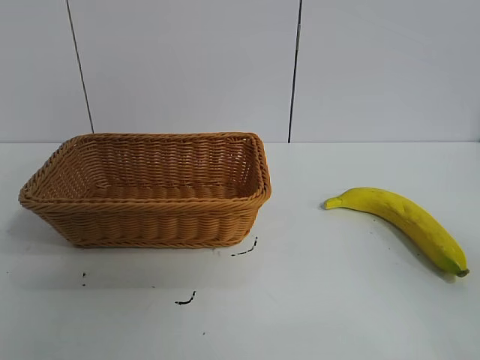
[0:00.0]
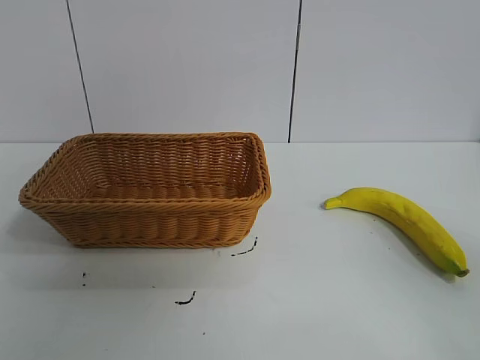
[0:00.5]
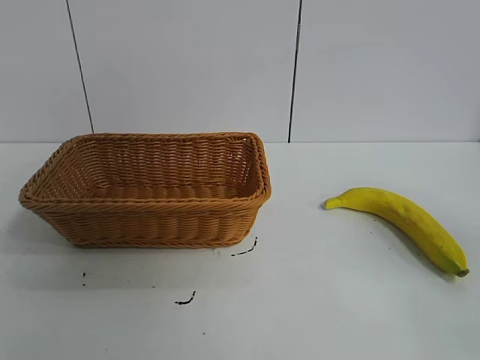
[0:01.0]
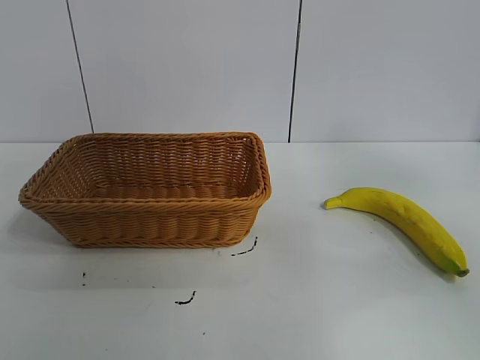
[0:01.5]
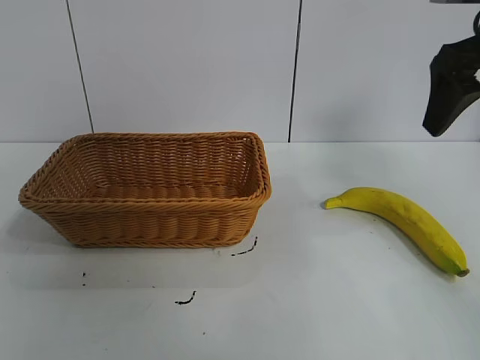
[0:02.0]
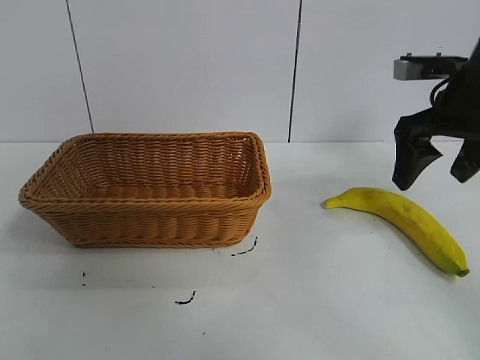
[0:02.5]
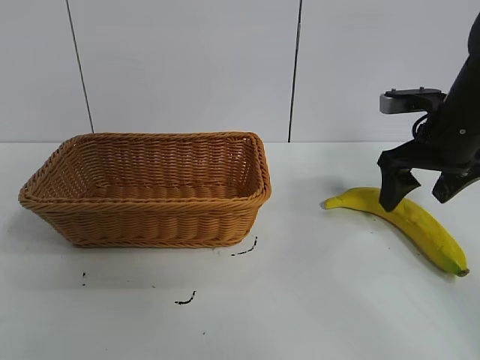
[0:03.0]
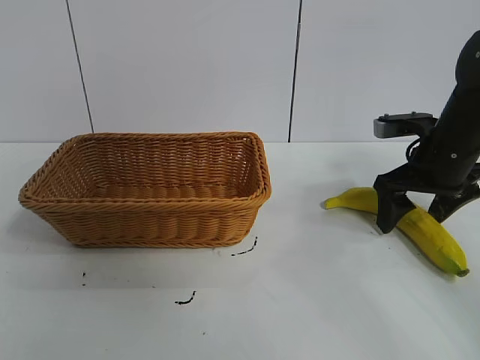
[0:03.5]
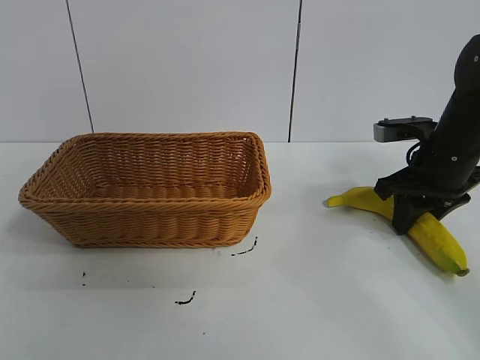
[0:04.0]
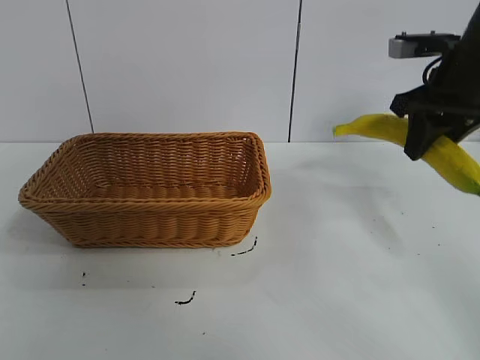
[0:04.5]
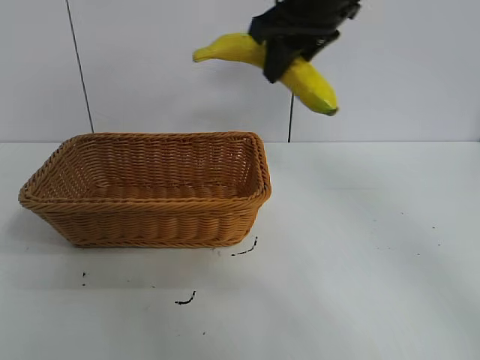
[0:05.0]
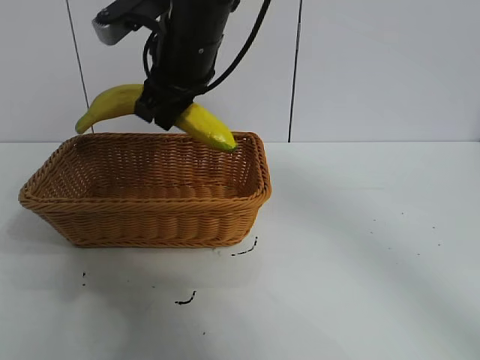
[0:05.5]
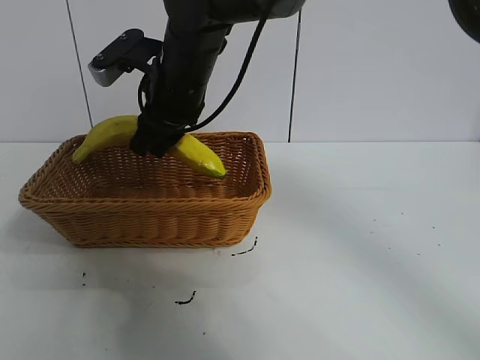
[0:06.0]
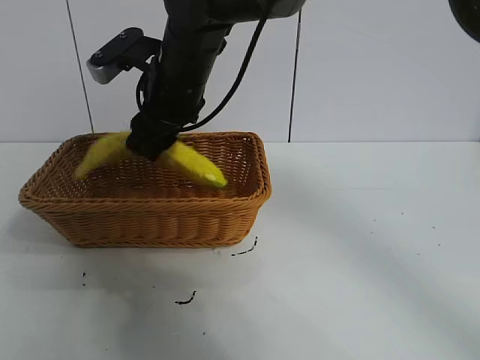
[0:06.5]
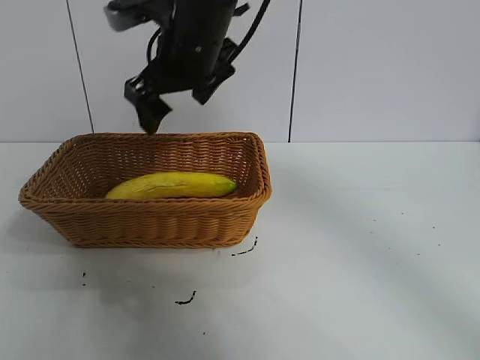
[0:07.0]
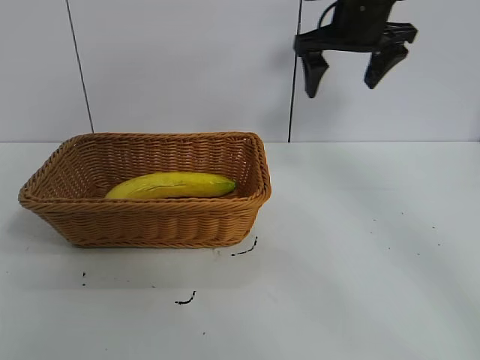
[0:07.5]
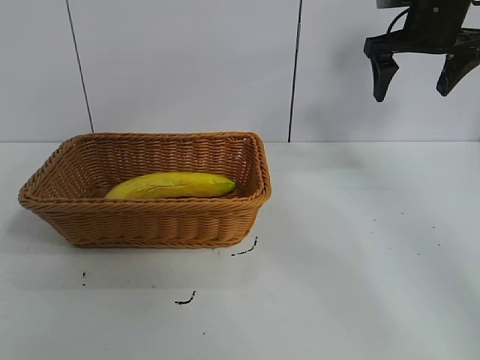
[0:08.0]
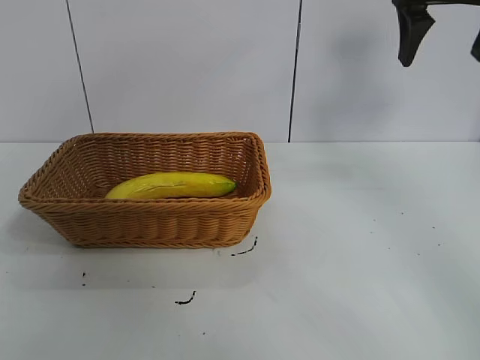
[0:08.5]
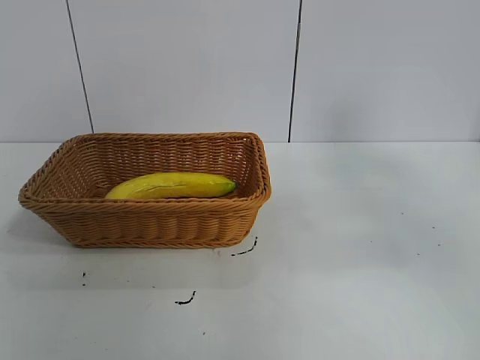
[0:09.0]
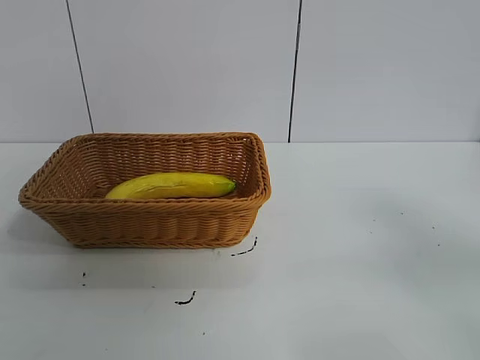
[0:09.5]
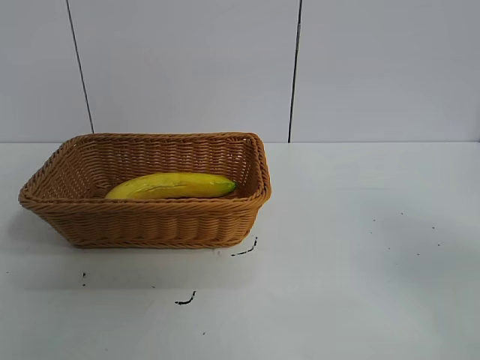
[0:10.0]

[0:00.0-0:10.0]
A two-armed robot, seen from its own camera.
Task of the whole recording: pick up the banana and put it into the basket.
Step, 0:01.0 to 0:03.5: Grasp the banana with right gripper.
Step, 0:04.5 to 0:06.5: Place the banana in the basket with right gripper.

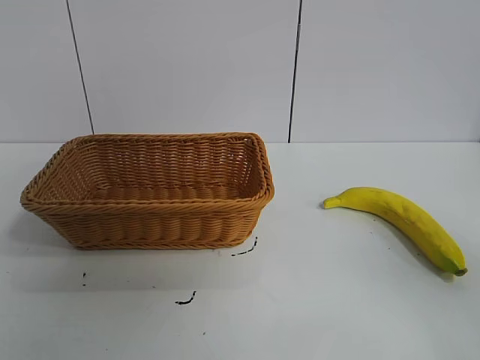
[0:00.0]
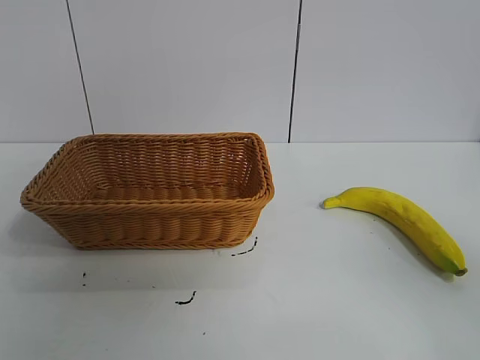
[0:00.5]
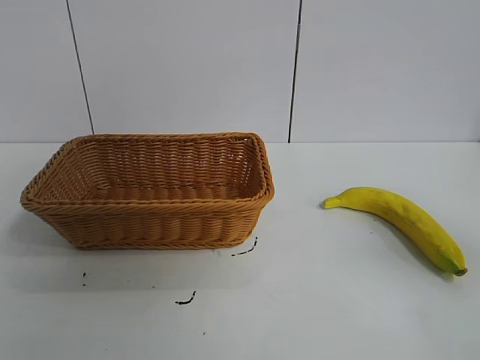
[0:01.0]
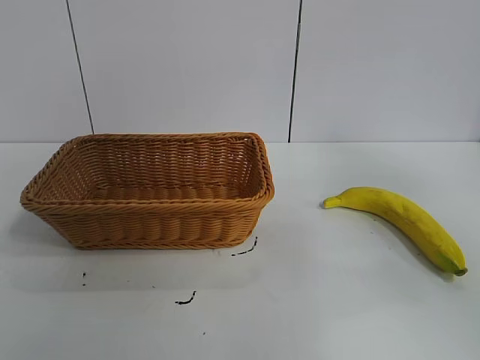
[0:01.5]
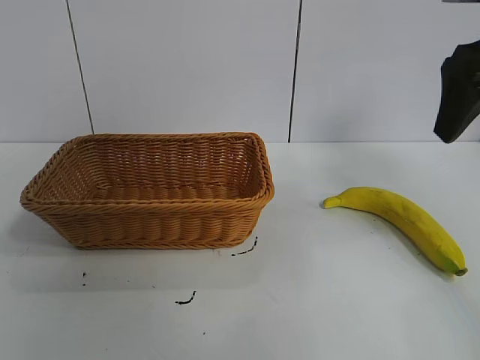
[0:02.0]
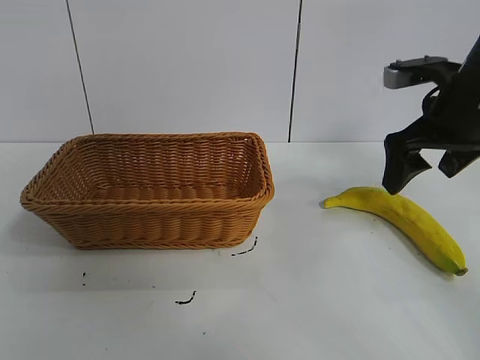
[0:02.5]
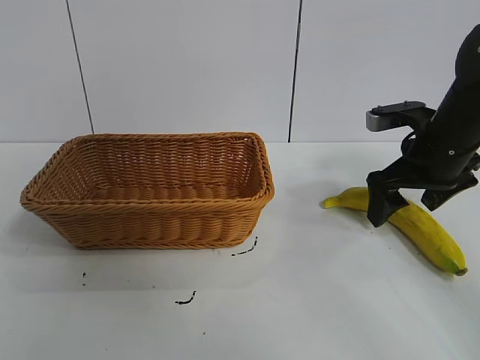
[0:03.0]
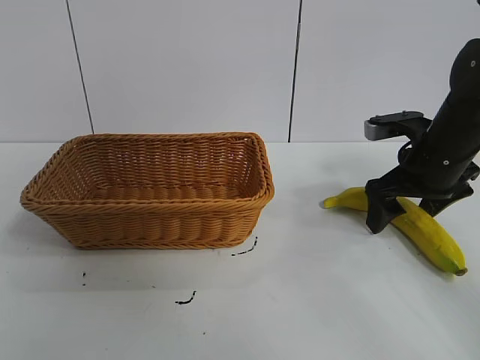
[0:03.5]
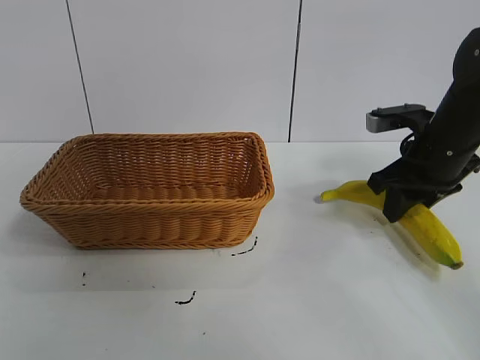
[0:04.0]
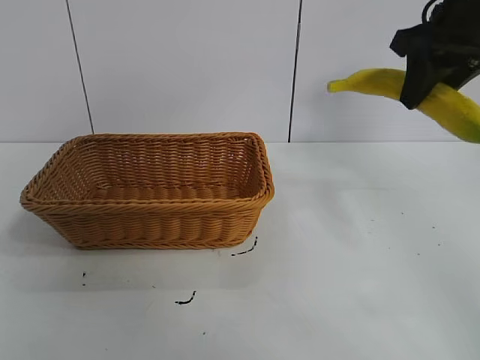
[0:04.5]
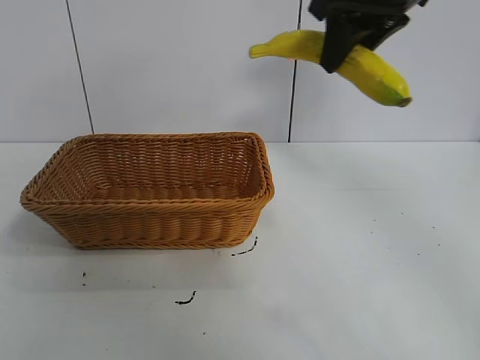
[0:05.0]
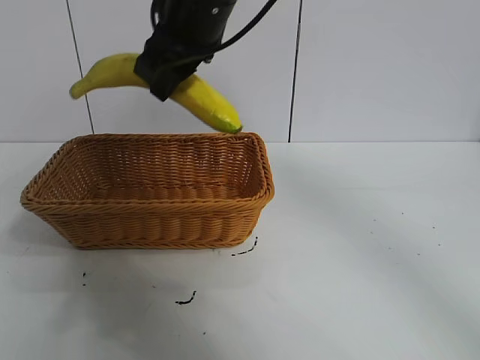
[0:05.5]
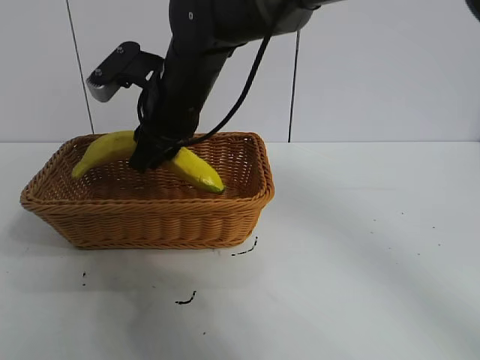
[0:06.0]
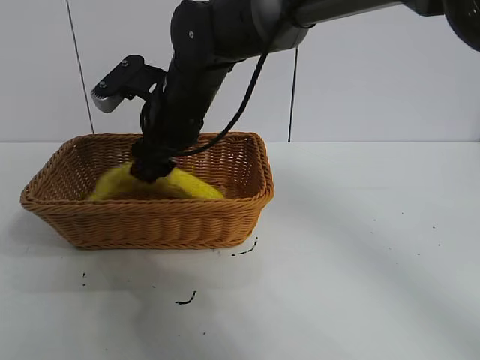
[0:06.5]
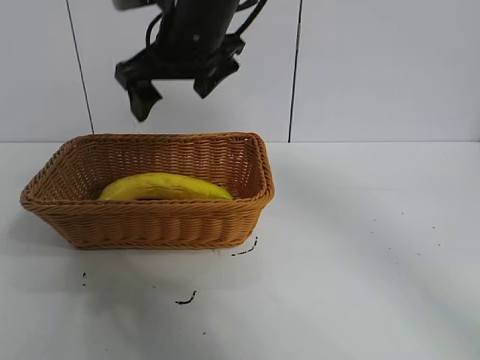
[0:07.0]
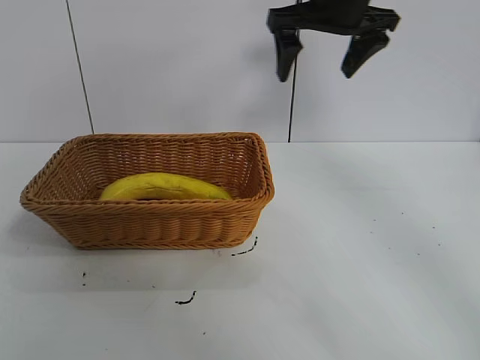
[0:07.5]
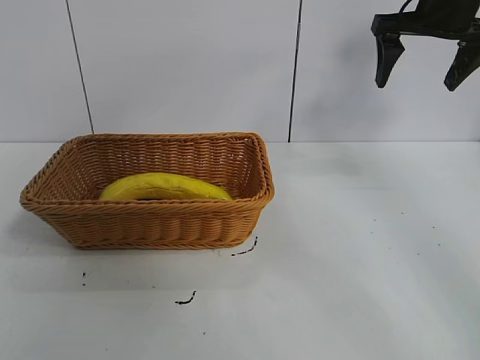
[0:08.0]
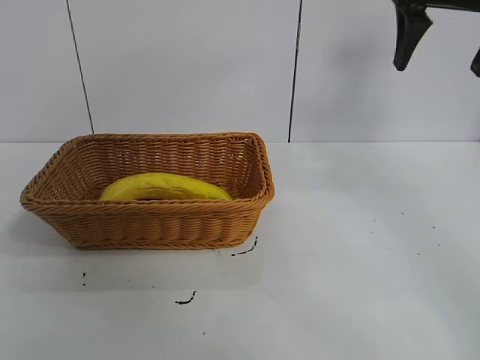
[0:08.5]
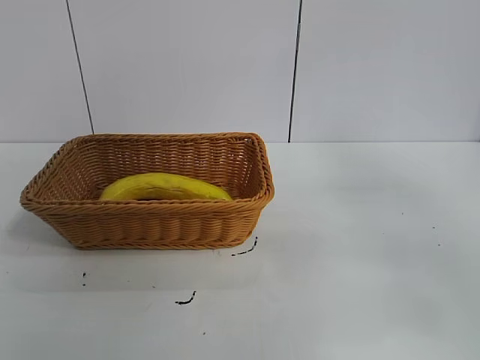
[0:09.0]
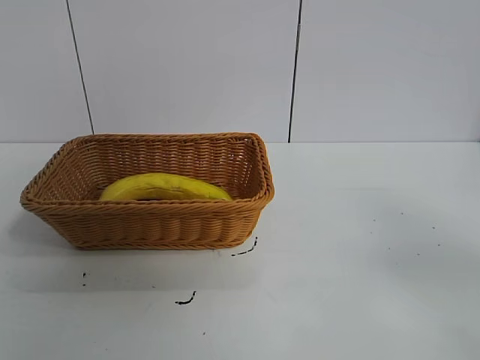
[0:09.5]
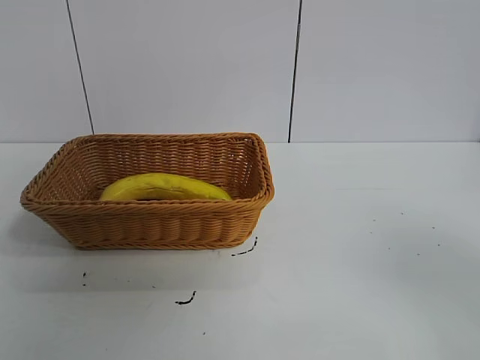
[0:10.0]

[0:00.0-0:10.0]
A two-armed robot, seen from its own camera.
Task of the whole recording: pick up the banana and put it into the basket.
Step, 0:01.0 to 0:03.5: Grasp the banana with right gripper.
Step, 0:04.0 to 0:06.5: Place the banana in the basket with right gripper.

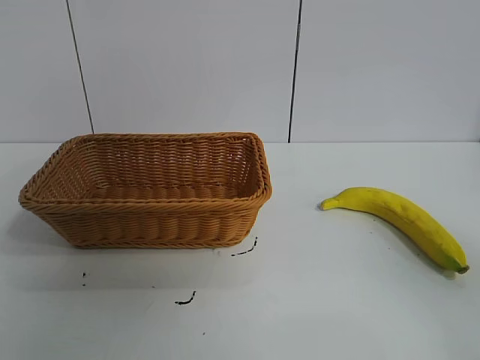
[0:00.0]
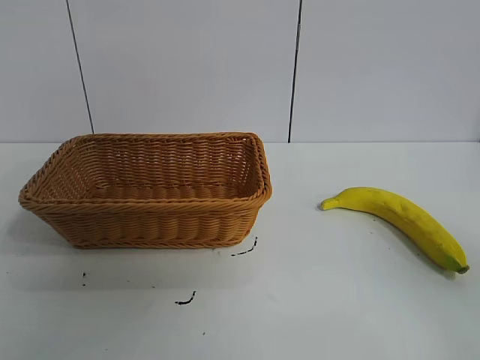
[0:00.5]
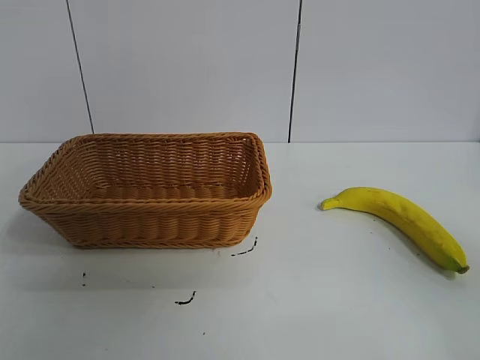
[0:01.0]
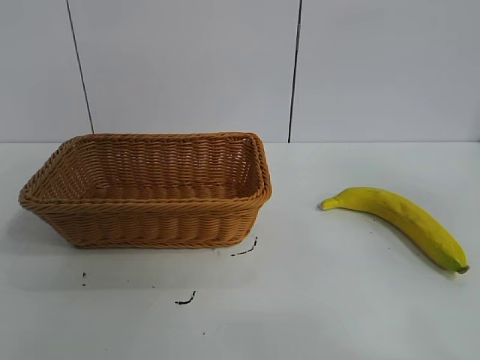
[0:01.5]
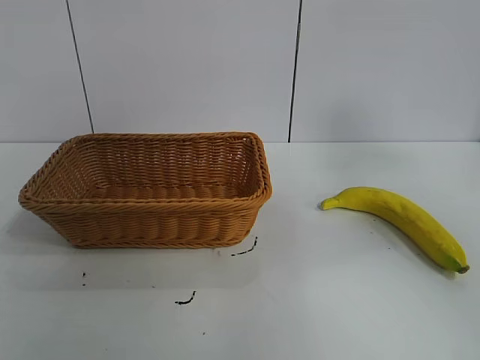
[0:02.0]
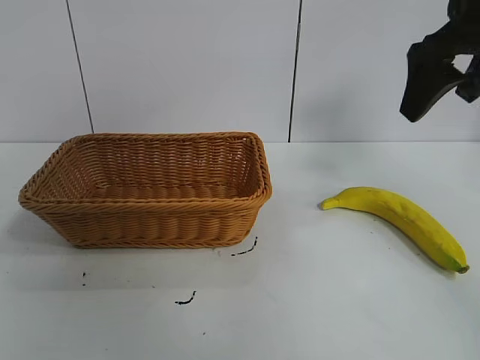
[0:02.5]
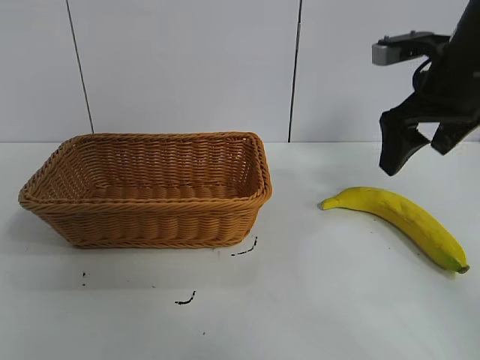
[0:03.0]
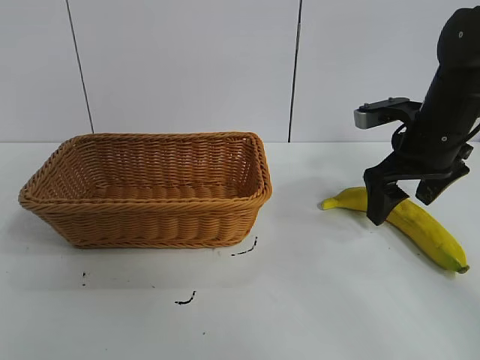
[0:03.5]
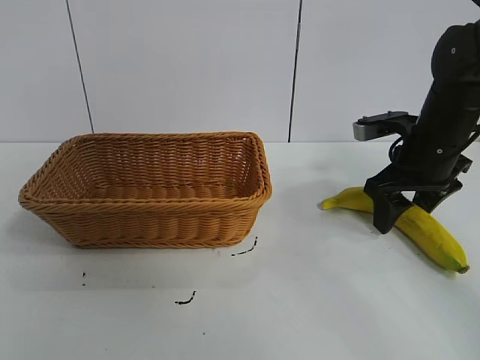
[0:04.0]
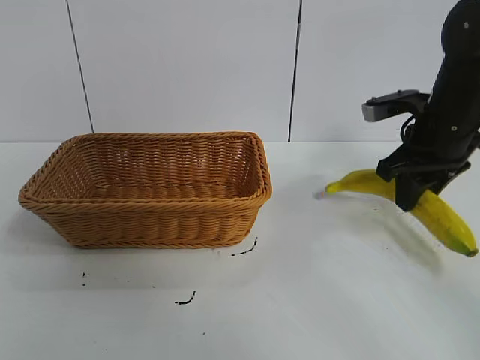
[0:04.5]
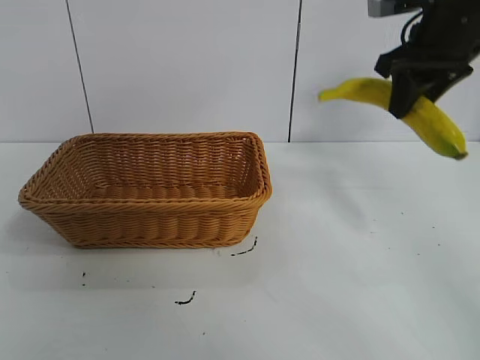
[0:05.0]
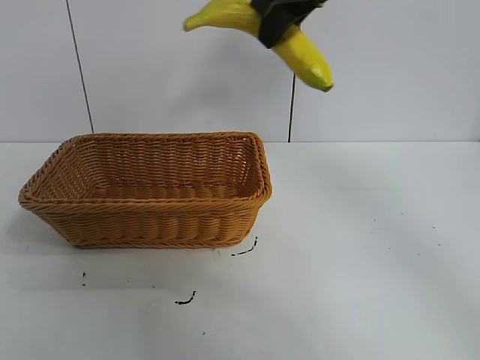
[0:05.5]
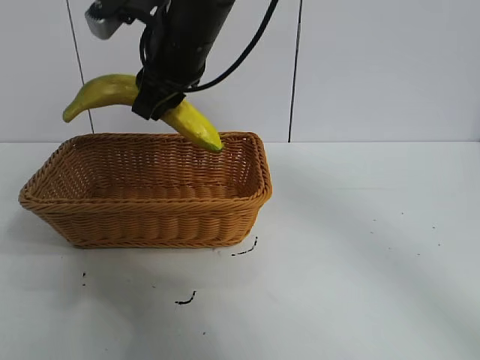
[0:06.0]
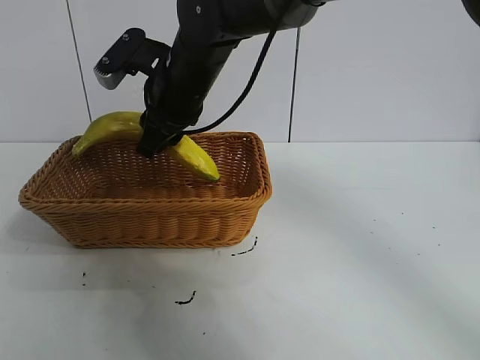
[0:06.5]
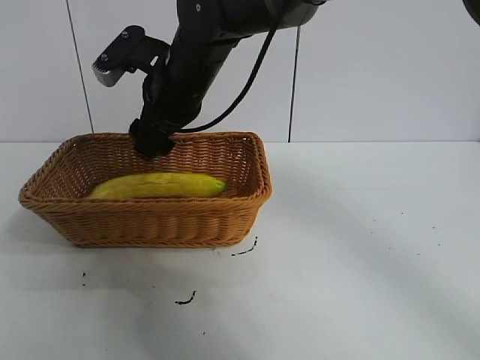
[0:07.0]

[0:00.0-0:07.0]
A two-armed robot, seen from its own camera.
Task of the whole recording: pick up the banana and put it into the basket.
Step, 0:01.0 to 0:04.0: Grasp the banana with right gripper.
